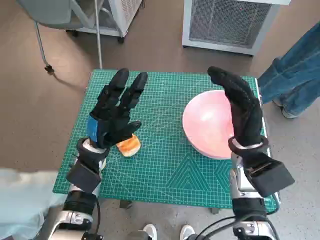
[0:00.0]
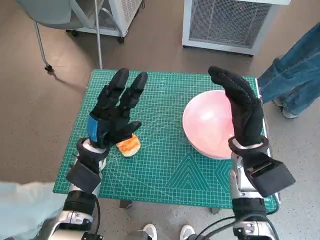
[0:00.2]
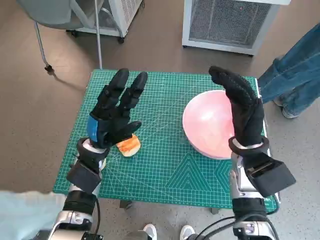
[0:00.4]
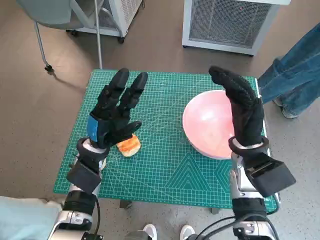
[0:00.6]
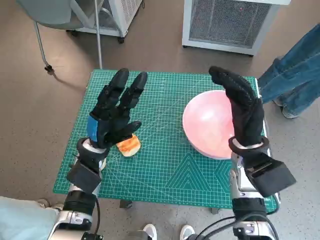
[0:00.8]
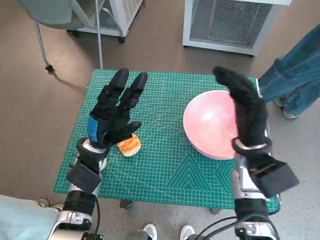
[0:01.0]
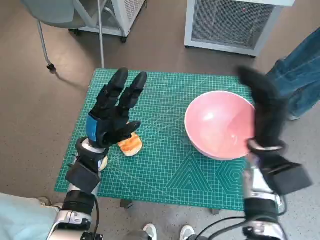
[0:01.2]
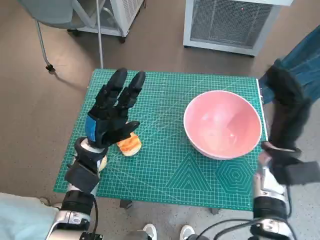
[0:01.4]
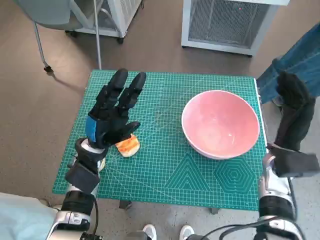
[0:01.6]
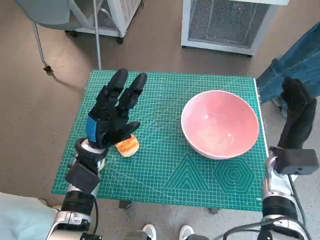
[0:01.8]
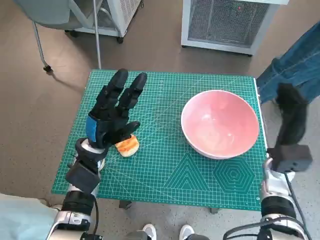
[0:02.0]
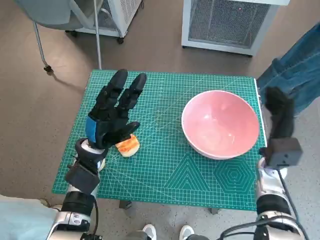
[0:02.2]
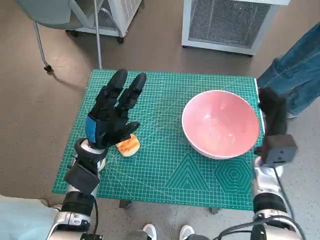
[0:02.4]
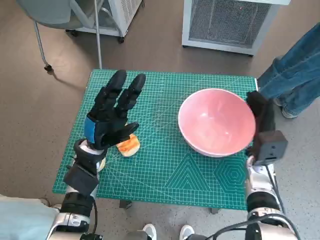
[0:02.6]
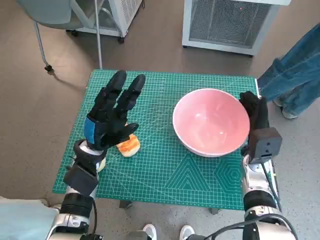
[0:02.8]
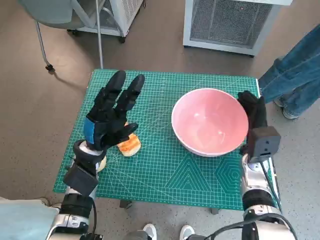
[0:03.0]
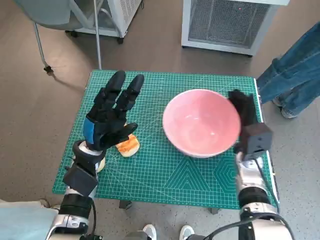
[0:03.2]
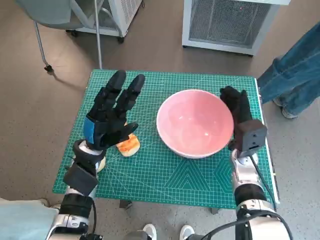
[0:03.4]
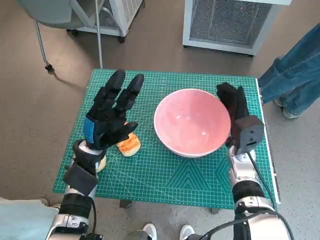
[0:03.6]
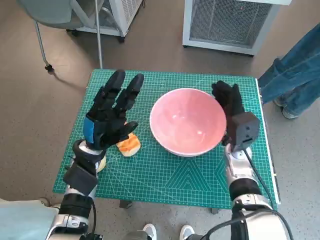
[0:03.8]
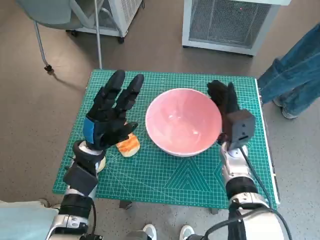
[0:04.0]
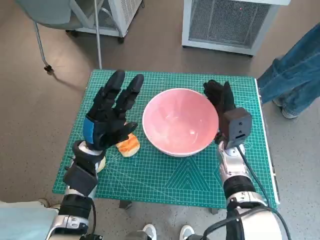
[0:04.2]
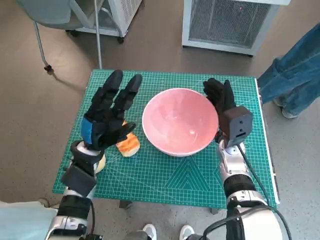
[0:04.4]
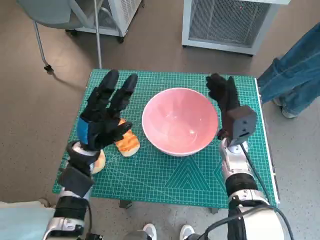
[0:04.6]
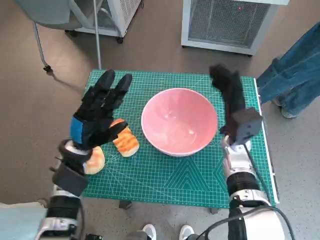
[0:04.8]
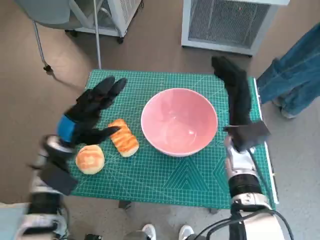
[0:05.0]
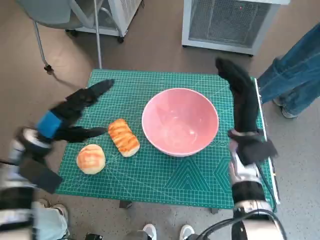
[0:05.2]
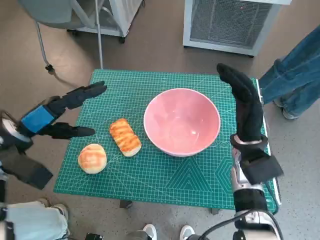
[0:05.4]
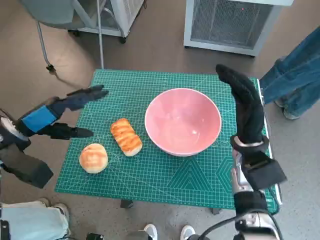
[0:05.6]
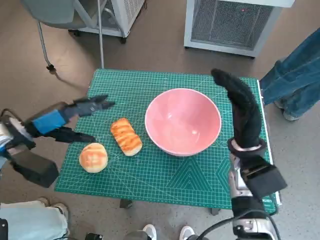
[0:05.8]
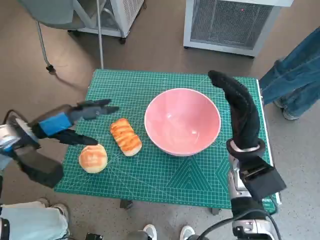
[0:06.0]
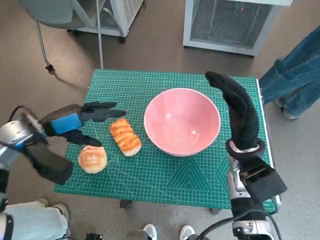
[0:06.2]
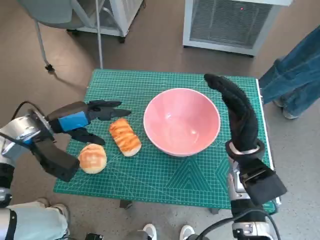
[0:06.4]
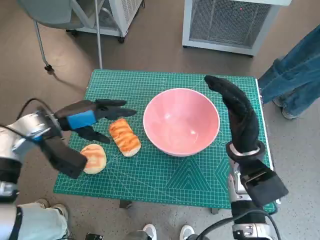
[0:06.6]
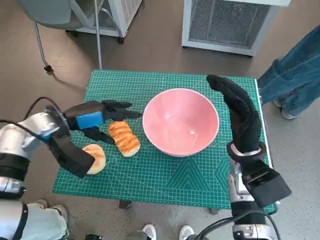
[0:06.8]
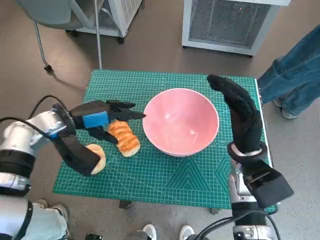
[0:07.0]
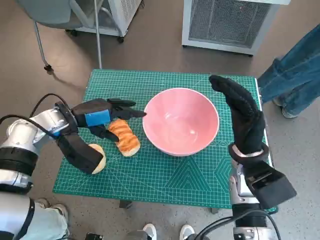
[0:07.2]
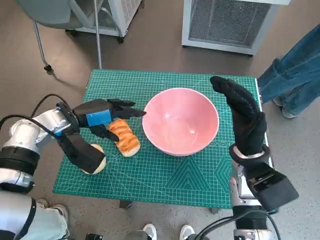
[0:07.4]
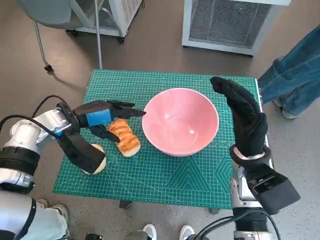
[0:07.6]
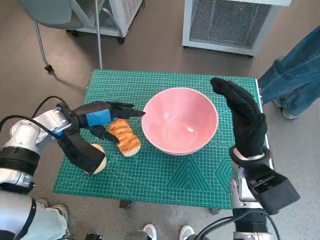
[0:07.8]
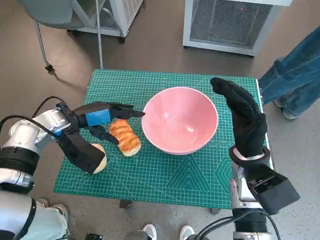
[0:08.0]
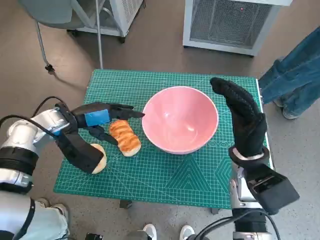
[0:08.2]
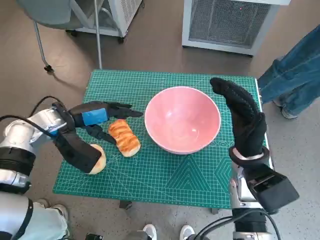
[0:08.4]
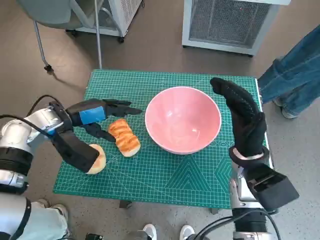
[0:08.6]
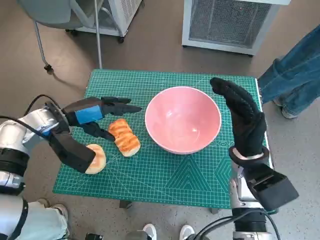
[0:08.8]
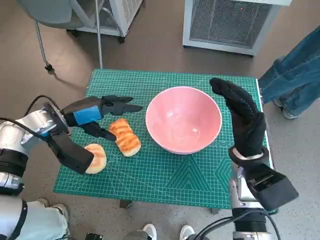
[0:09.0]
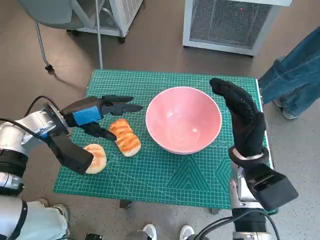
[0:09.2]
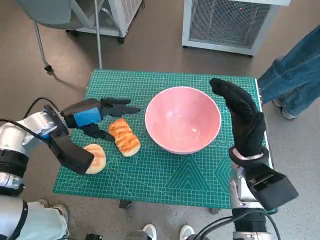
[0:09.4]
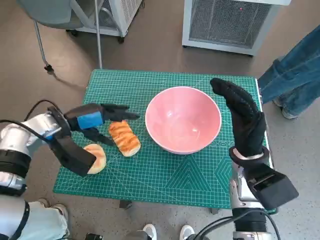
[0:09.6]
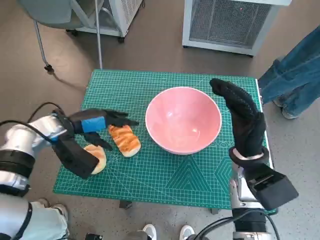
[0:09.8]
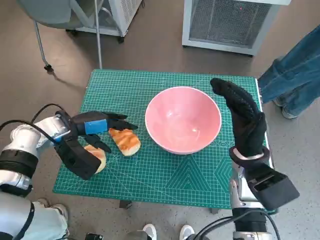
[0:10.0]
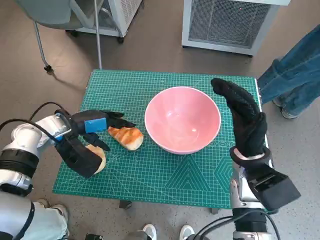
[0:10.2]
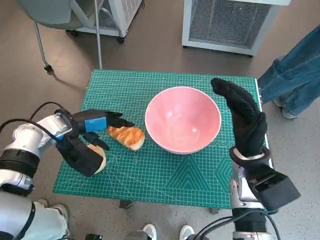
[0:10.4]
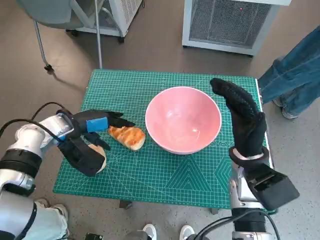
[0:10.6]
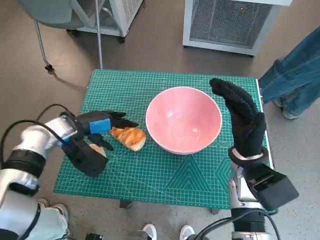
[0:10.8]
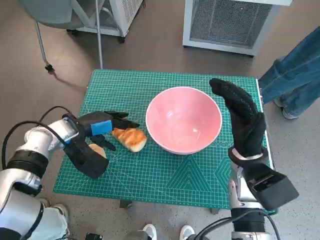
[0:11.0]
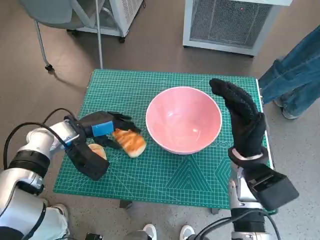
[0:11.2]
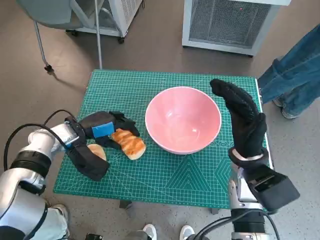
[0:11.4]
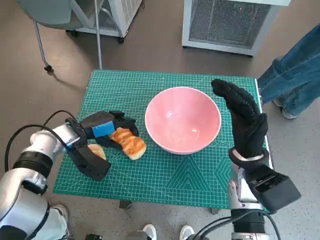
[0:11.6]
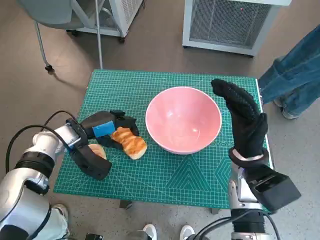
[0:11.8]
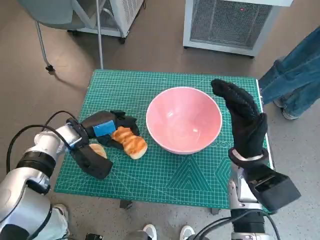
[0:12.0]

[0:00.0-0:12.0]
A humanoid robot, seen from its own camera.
Task of the whole recording: Push the bowl to the center of the table and put the bread into the bowl.
Step, 0:00.0 to 0:04.6: Move the pink bowl to the center of table with right hand.
Step, 0:04.8 to 0:11.4: Grasp the long bread with left hand.
0:01.6 to 0:03.0: The right hand shifts by roughly 5 cm.
0:03.0 to 0:04.4: The right hand travels to the left by approximately 5 cm.
0:04.4 to 0:06.0: The left hand travels to the left and upward by some 15 cm; the right hand shifts by about 5 cm.
0:06.0 to 0:07.6: The left hand shifts some 5 cm to the right.
0:07.6 to 0:09.0: The hands stay close to where they were, moving slightly.
0:10.4 to 0:12.0: The hands make only small movements.

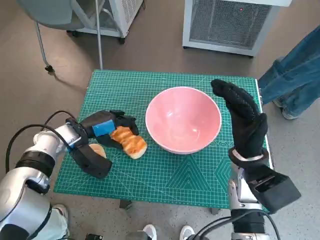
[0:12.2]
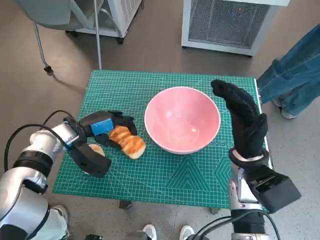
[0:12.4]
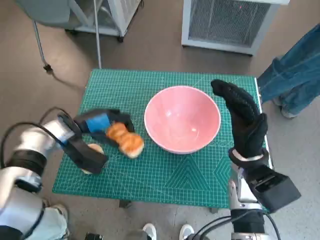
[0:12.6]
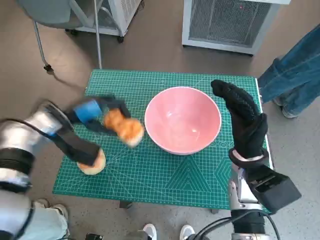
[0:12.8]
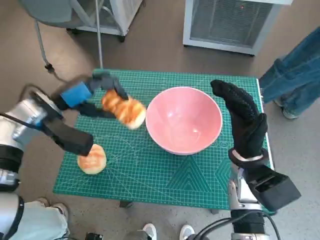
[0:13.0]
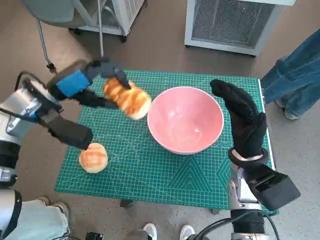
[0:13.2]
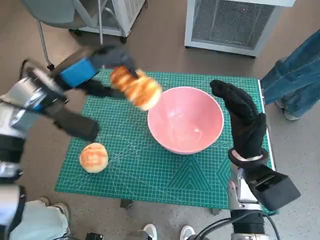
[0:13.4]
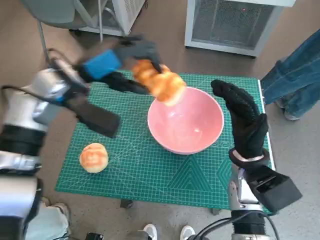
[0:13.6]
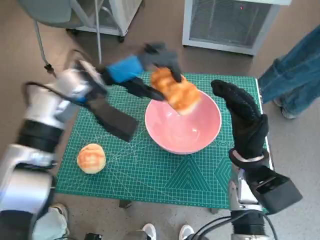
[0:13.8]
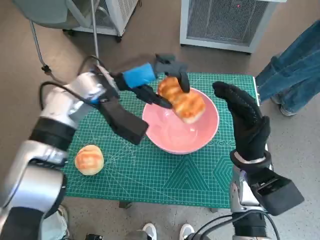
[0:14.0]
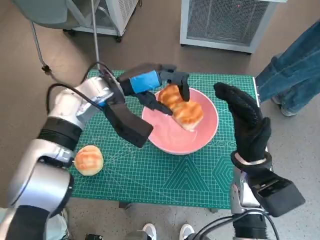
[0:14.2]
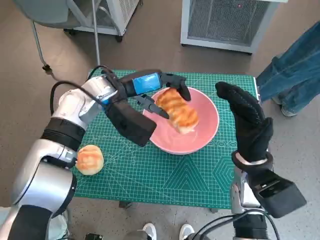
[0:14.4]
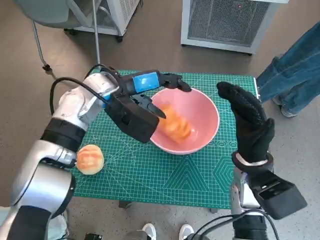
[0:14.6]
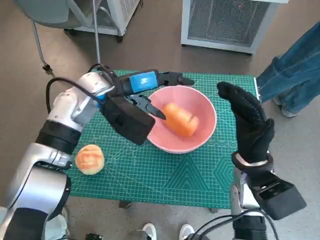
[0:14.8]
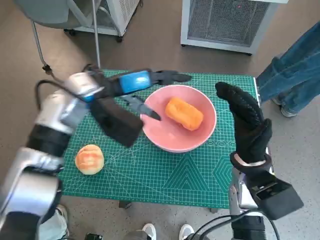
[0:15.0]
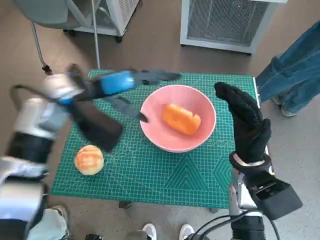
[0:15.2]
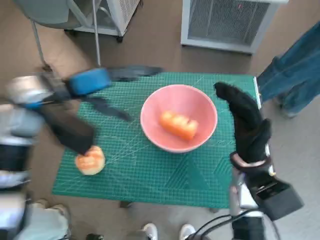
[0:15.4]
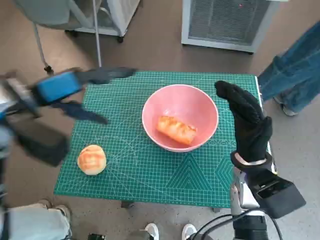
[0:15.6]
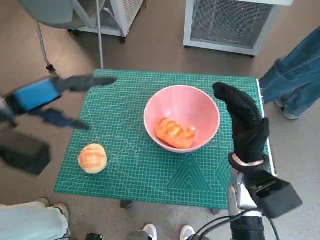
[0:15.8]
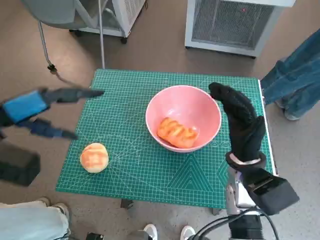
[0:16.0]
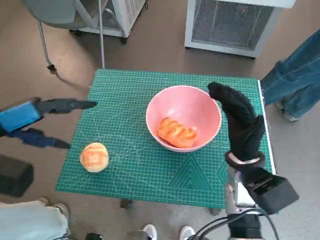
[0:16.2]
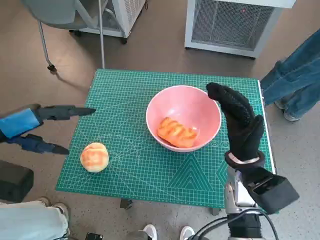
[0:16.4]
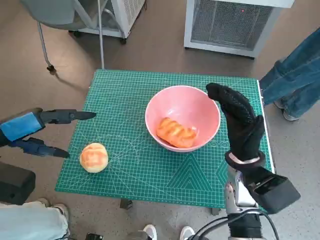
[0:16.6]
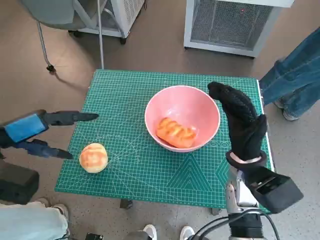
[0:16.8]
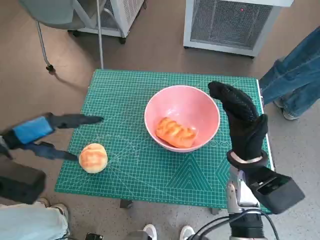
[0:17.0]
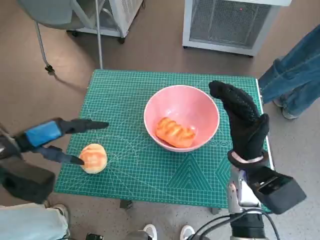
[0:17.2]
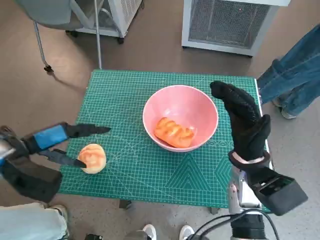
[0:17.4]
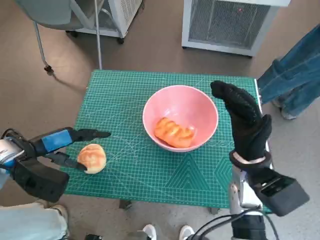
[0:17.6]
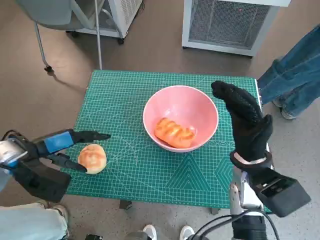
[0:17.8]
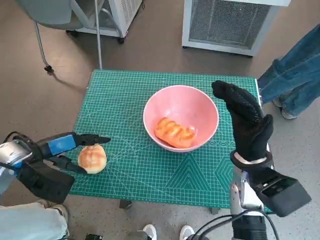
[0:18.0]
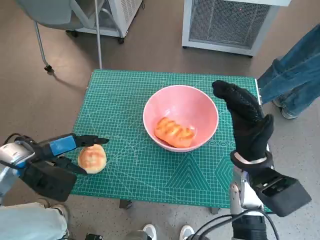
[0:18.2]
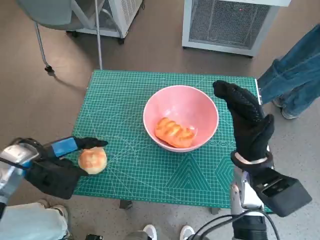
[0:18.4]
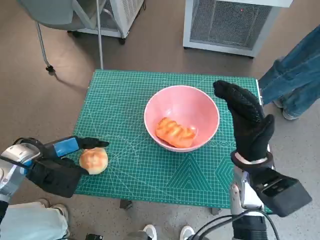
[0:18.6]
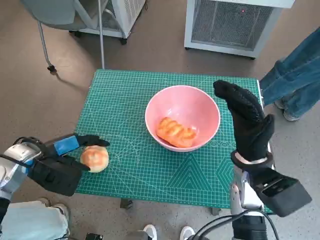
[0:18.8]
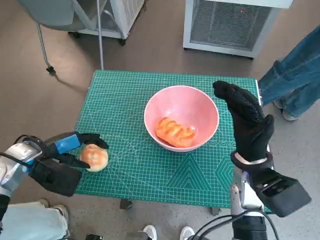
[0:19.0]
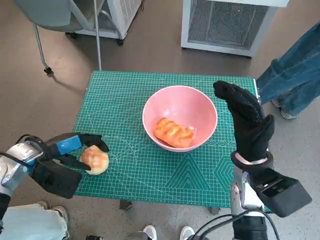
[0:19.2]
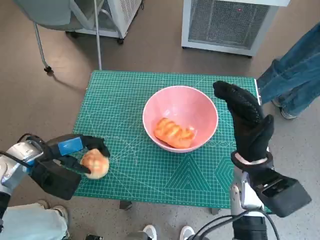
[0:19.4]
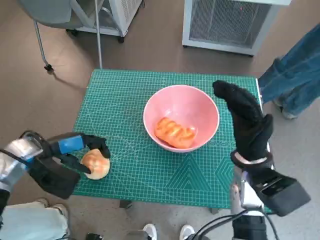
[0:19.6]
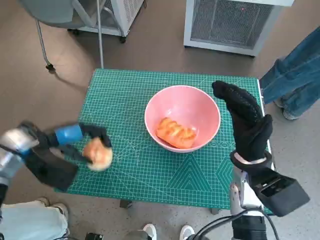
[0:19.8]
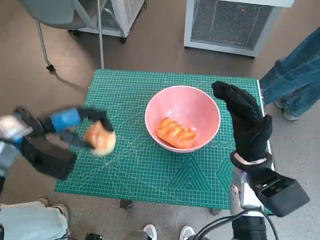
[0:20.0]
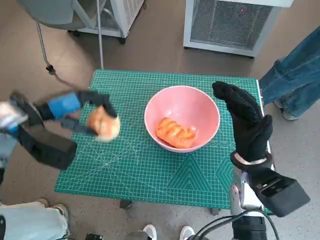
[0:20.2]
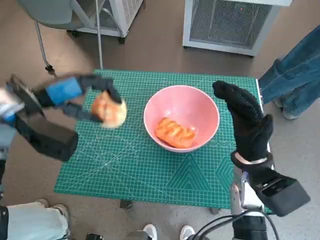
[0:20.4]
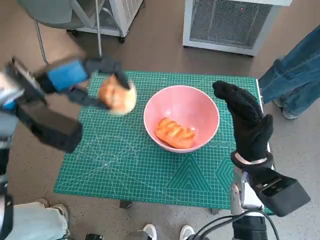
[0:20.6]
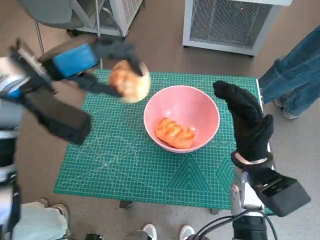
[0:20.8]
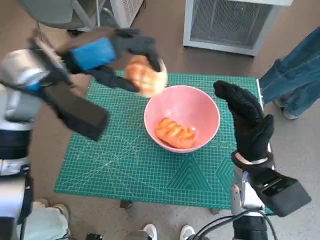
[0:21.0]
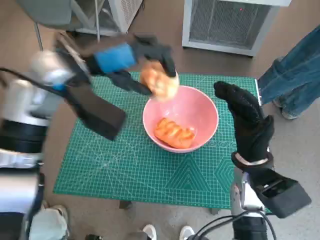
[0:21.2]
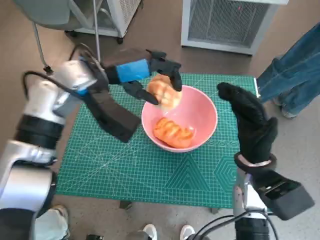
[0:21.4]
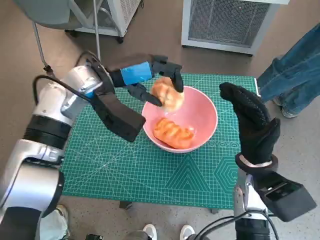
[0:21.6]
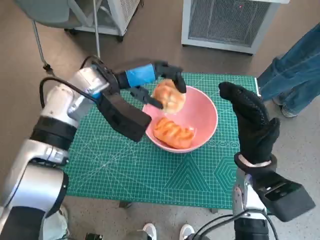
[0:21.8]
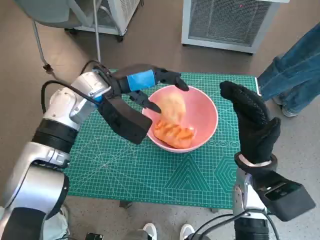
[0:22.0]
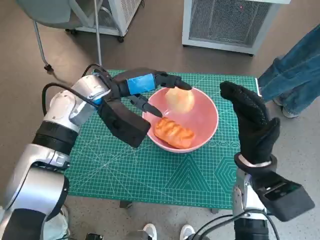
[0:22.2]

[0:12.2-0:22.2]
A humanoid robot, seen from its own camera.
Task of the whole recording: Push the bowl to the center of the table and put the bread into the bowl.
Step, 0:12.2 to 0:15.0: Place the long bread in pink bowl with left hand.
Step, 0:15.2 to 0:18.8: Grasp the round bread with left hand.
0:12.2 to 0:13.6: The left hand travels upward by about 15 cm.
0:13.6 to 0:15.0: The left hand travels to the right by some 5 cm.
0:15.0 to 0:16.4: The left hand heads to the left and backward, covering roughly 20 cm.
0:16.4 to 0:18.0: The left hand travels downward by some 10 cm.
0:18.0 to 0:19.4: The hands stay close to where they were, moving slightly.
0:19.4 to 0:20.8: The left hand is displaced upward and to the right by some 20 cm.
0:20.8 to 0:22.2: The left hand heads downward and to the right, covering some 10 cm.
